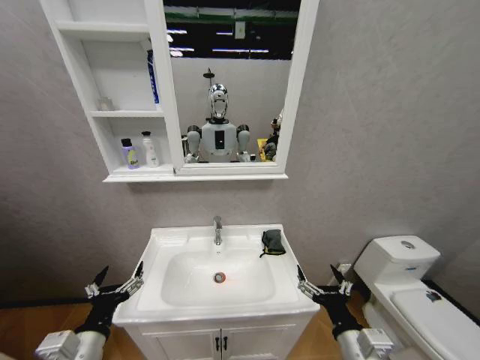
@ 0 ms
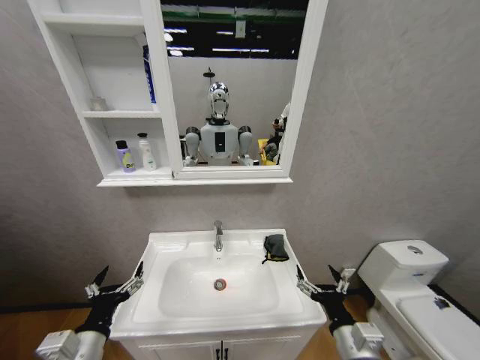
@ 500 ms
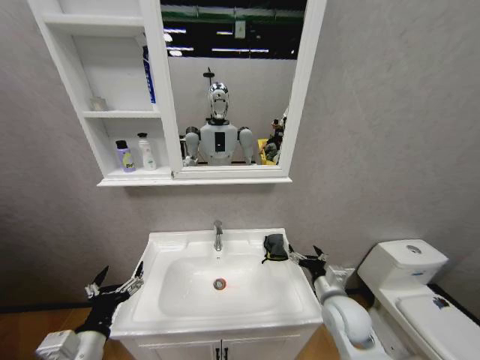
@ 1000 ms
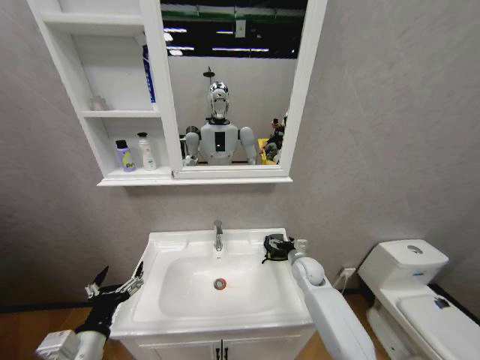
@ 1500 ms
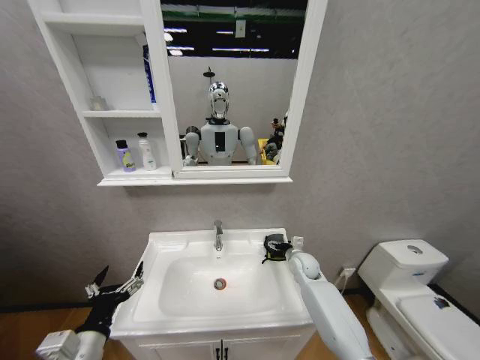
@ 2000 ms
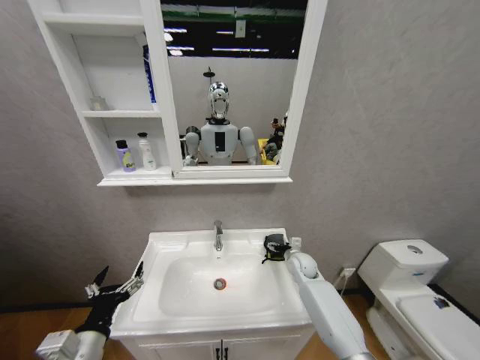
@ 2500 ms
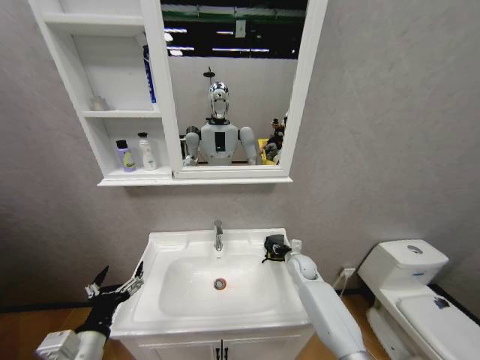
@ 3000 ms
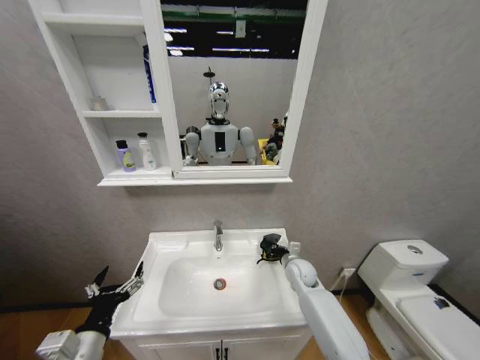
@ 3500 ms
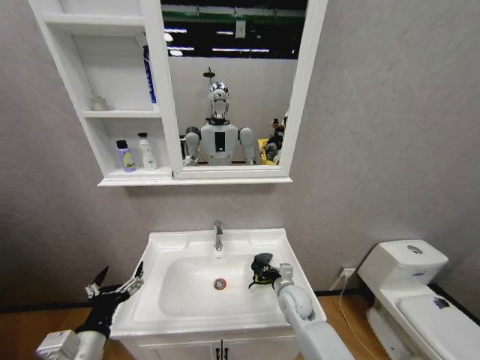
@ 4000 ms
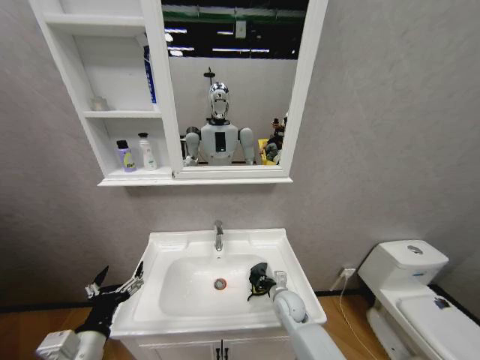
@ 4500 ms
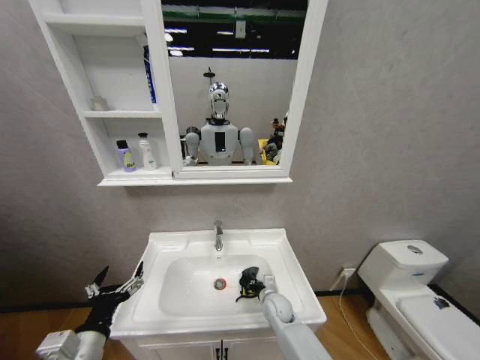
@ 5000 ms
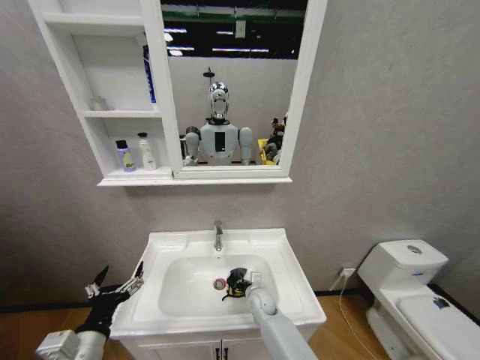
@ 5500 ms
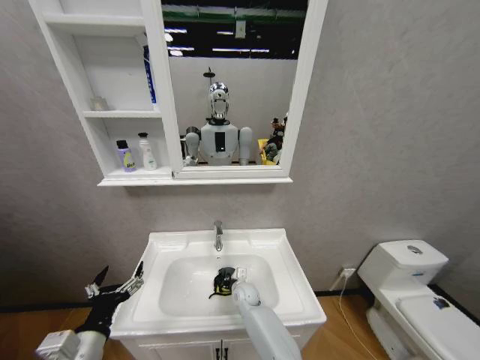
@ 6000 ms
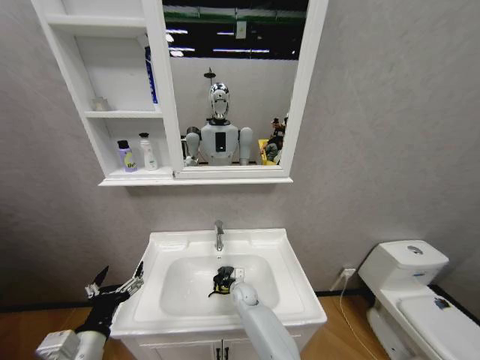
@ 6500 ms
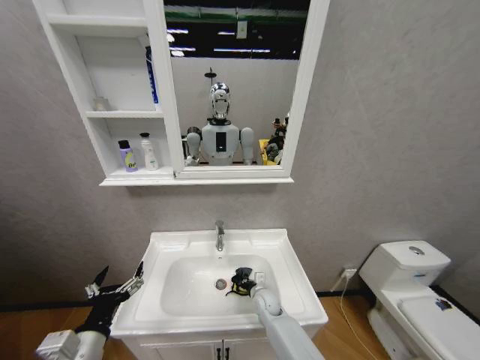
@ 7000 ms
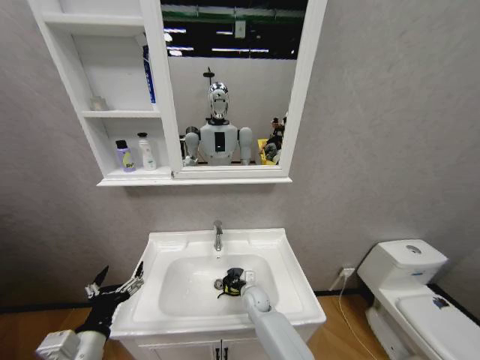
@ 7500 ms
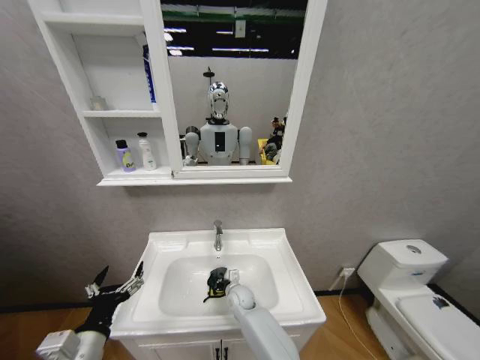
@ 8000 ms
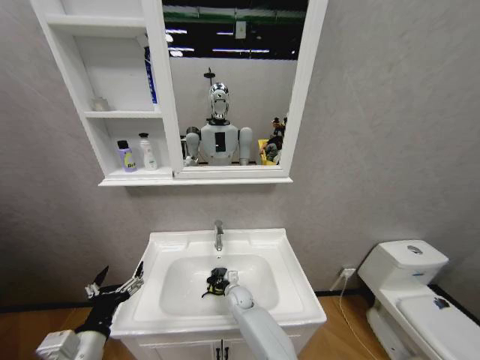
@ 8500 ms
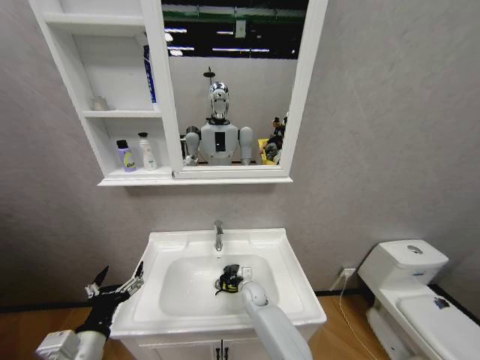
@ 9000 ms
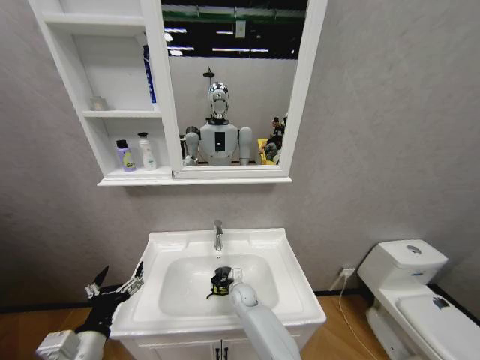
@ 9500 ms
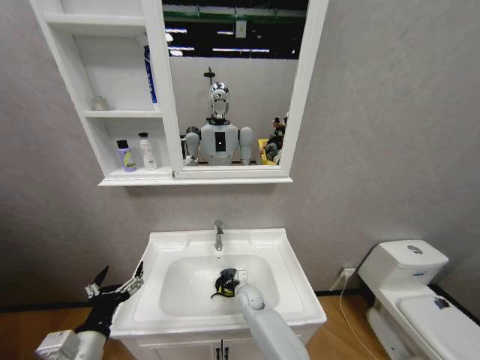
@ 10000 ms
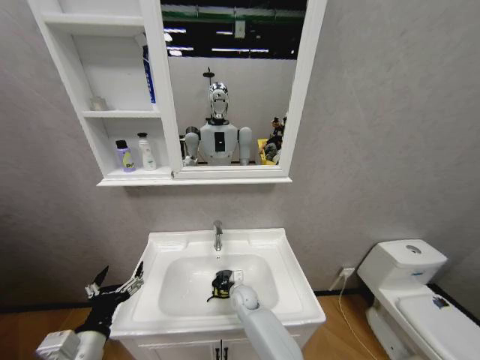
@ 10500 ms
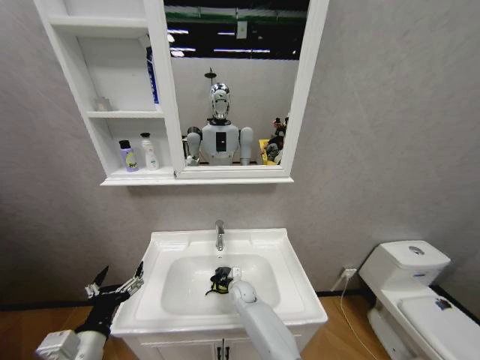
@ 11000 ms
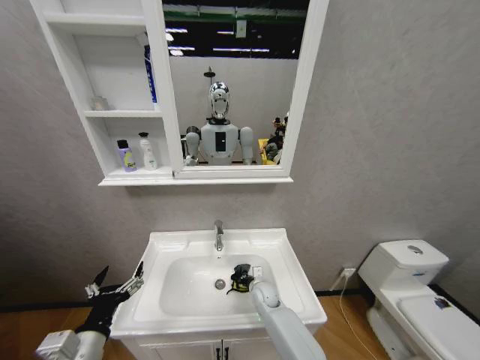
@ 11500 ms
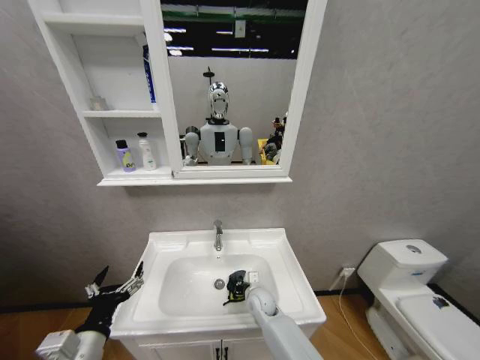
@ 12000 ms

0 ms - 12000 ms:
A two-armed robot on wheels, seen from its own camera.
Task of the whole recording: Move facial cleanser and shampoo from washbasin to cabinet, then wipe washbasin with towel.
0 ms - 2000 ms: The right gripper goes roughly 35 cm forward.
2000 ms - 4000 ms: The right gripper goes some 10 cm backward and to the left, and closes.
4000 ms - 6000 ms: The right gripper travels to the left, downward and forward by roughly 20 cm.
6000 ms - 8000 ms: The right gripper reaches approximately 5 cm to the right, then returns.
8000 ms - 10000 ms: The grippers make only small movements.
10000 ms - 12000 ms: The right gripper shifts by about 5 cm.

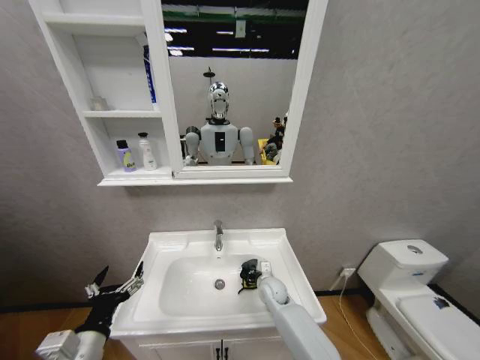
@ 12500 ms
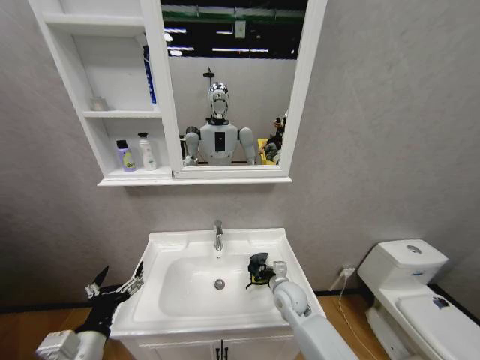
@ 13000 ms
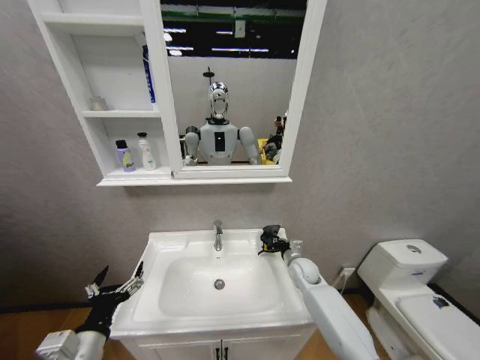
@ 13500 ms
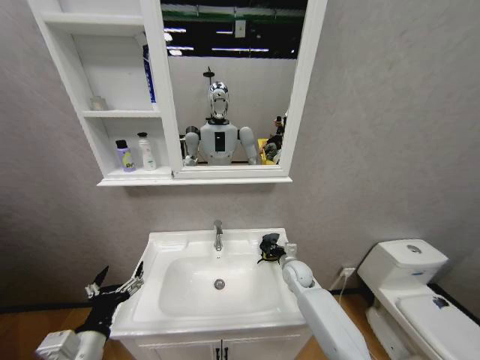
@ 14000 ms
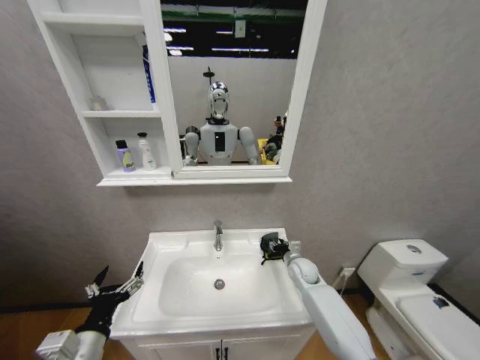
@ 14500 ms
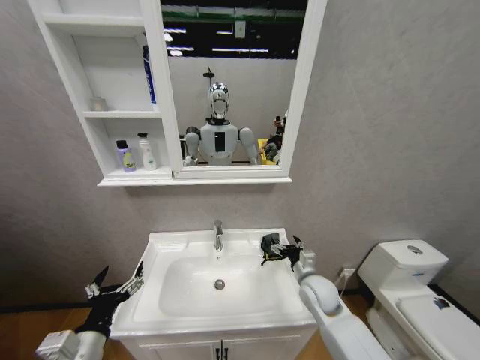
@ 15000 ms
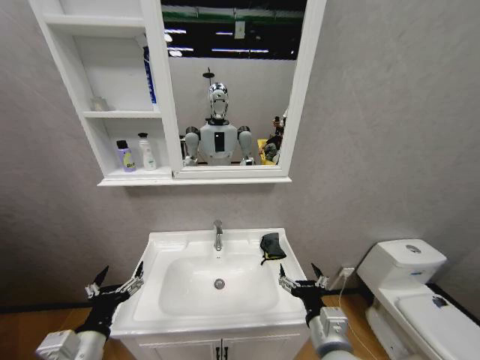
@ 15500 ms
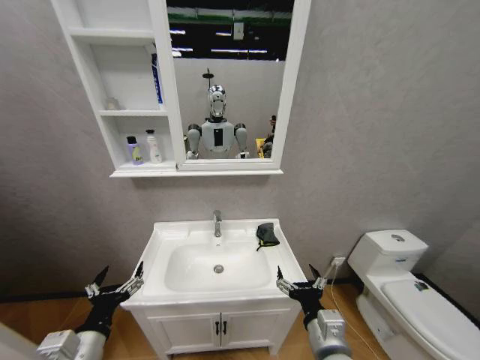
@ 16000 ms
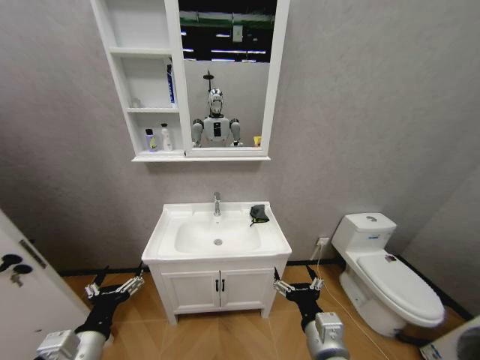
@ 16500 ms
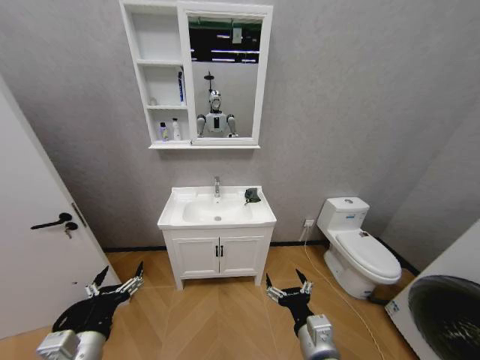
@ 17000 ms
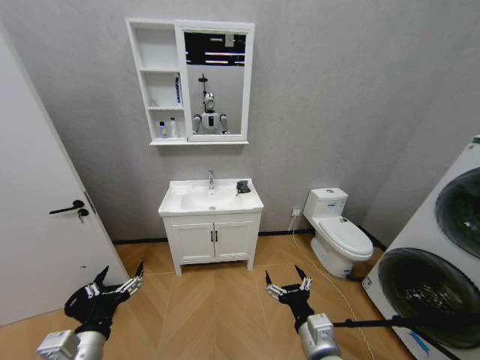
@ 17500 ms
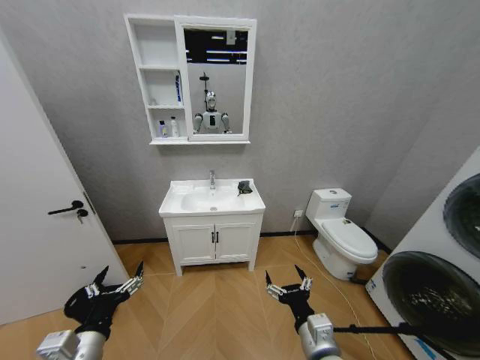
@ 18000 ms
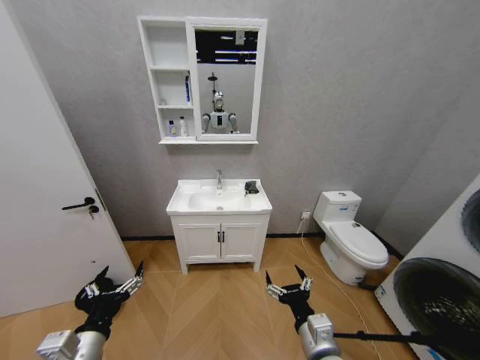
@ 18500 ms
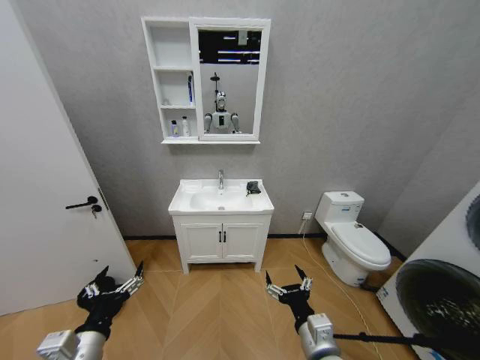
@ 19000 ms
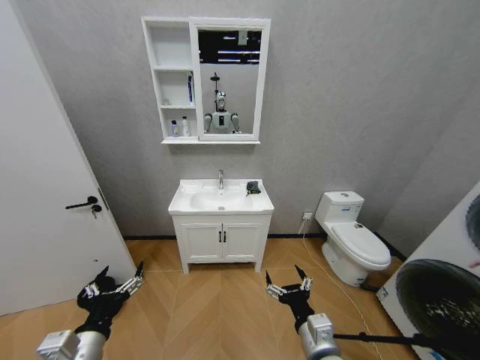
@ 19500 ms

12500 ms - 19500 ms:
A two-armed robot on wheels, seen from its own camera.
Task of the whole recording: Move facial cleanser and shampoo from washbasin to cabinet, then wipe washbasin with towel.
12500 ms - 14500 ms: The right gripper moves to the right and upward, some 15 cm, and opens up.
14500 ms - 16000 ms: The right gripper moves backward, about 30 cm, and opens up.
17500 ms - 19500 ms: Both grippers stay about where they are.

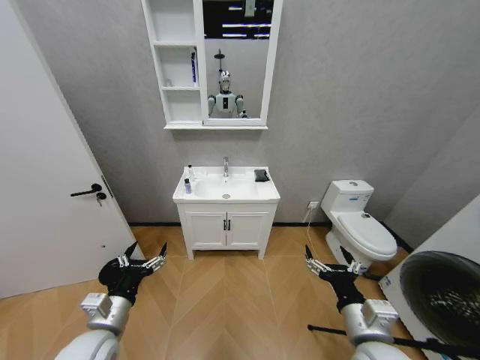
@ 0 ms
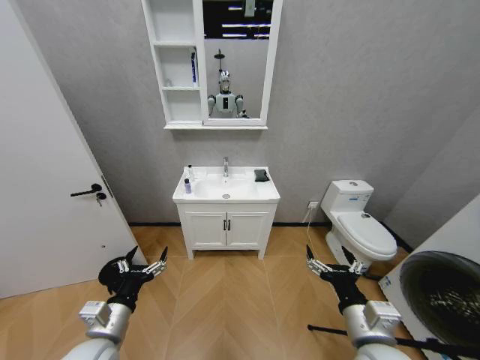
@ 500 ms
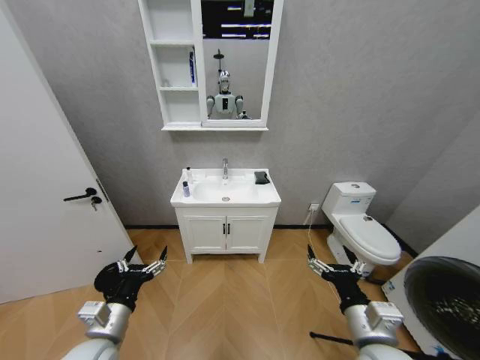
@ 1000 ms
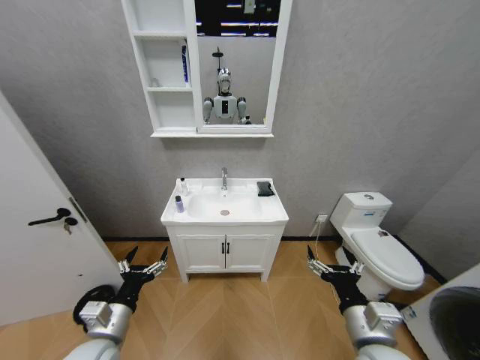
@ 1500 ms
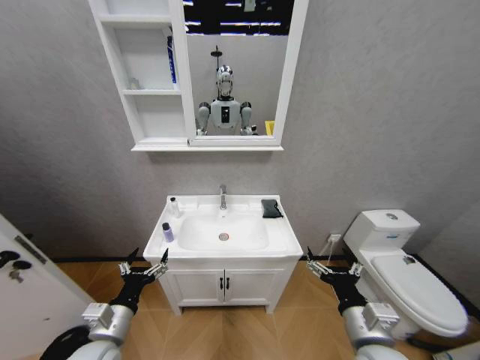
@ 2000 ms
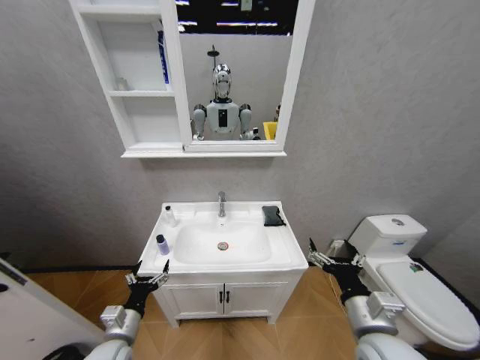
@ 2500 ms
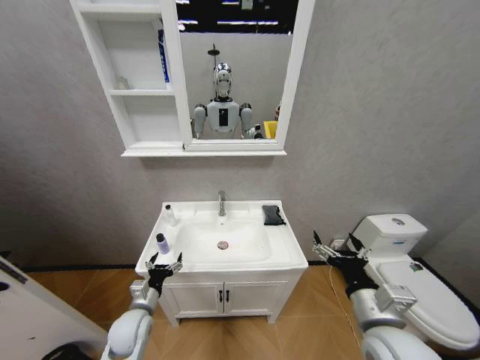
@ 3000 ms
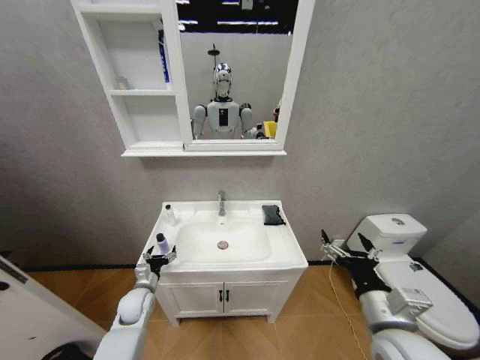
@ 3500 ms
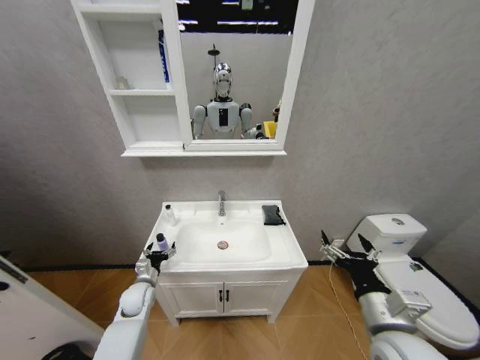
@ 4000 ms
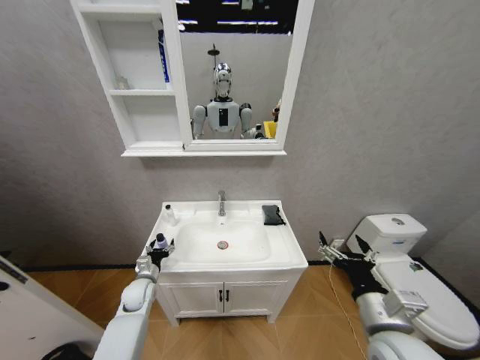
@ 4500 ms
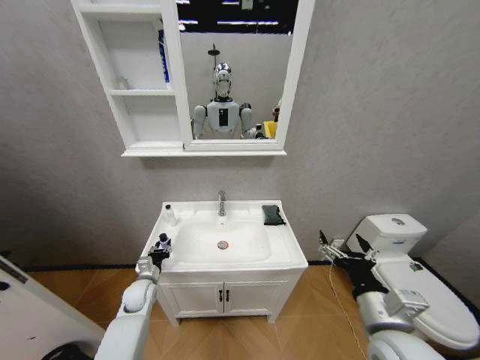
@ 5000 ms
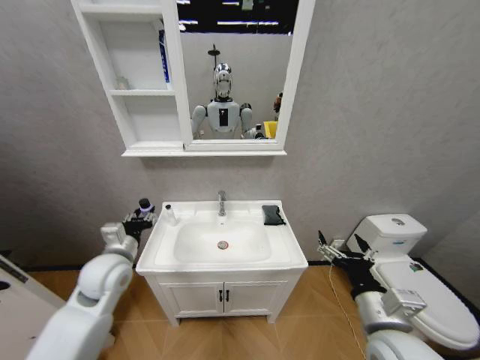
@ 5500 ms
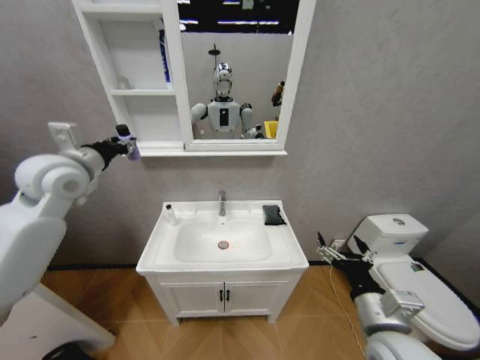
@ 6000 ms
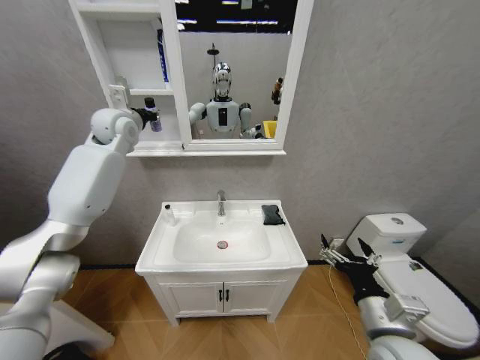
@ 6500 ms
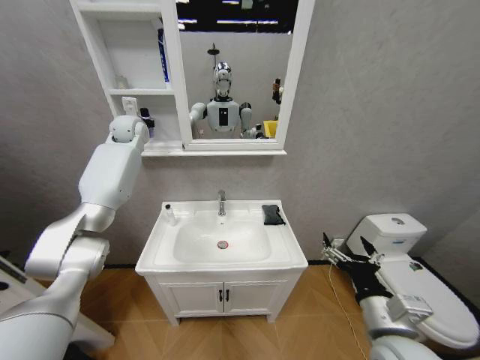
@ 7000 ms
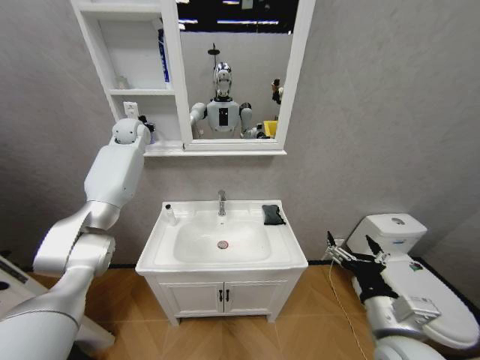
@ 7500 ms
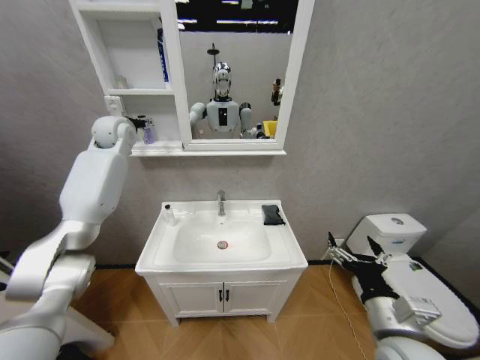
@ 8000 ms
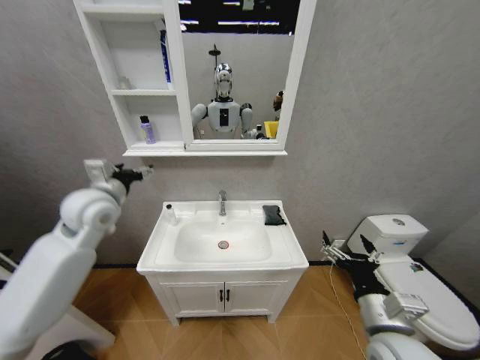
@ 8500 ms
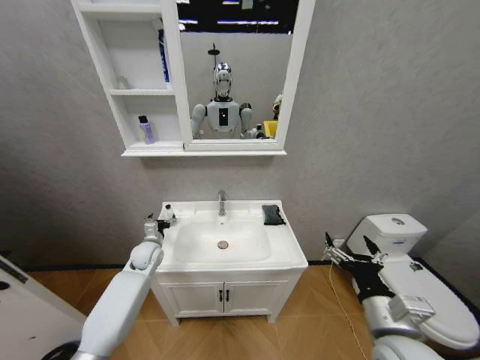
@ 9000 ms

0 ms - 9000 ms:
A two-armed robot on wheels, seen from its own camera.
Task of the whole recording: Move facial cleanser and shampoo from washbasin to cabinet, then wipe washbasin with towel.
2000 ms - 4500 ms: The left gripper is displaced forward and downward by approximately 25 cm.
4500 ms - 7000 ms: The left gripper travels upward and forward by roughly 50 cm, and closes its fingers.
7000 ms - 9000 ms: The left gripper travels downward and backward by some 40 cm, and opens.
